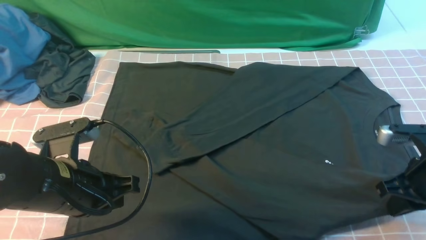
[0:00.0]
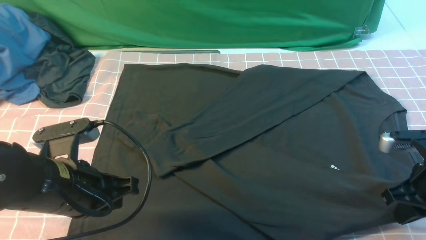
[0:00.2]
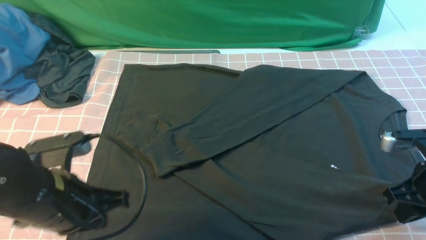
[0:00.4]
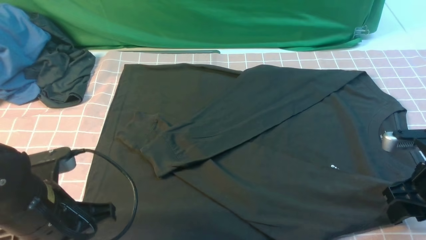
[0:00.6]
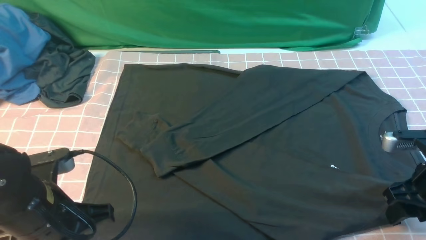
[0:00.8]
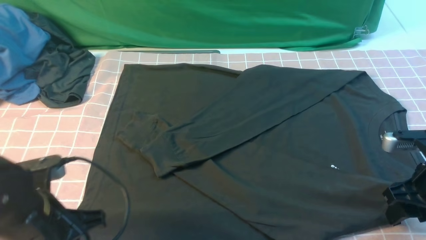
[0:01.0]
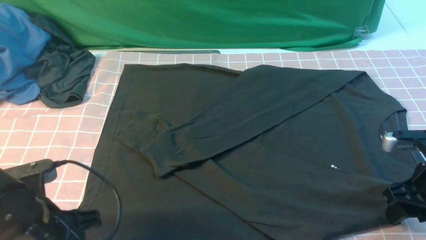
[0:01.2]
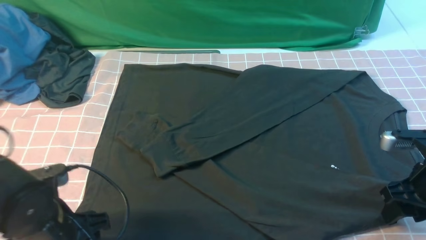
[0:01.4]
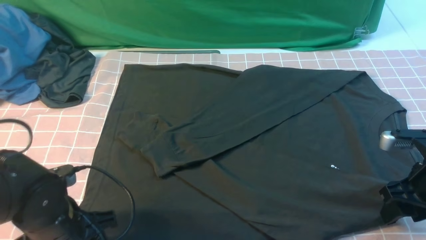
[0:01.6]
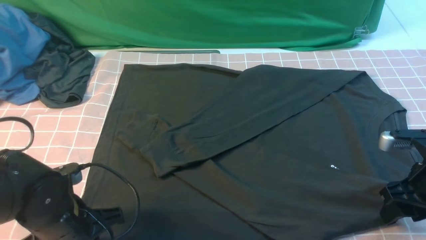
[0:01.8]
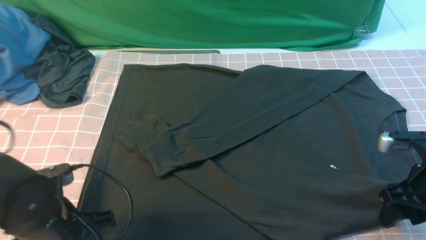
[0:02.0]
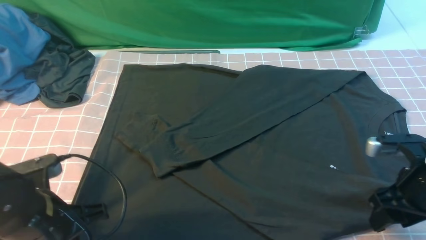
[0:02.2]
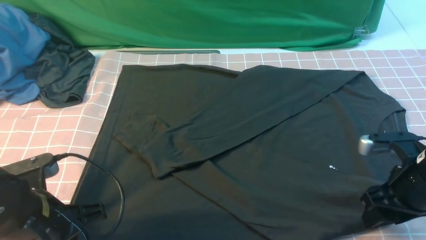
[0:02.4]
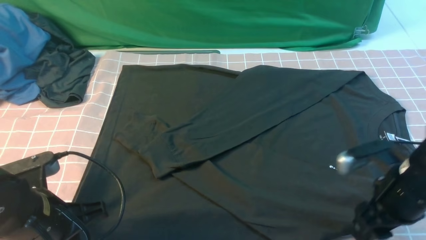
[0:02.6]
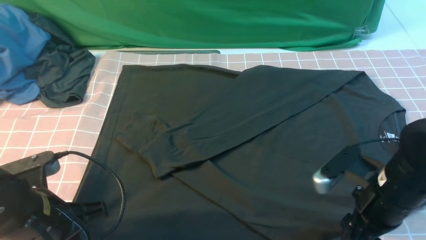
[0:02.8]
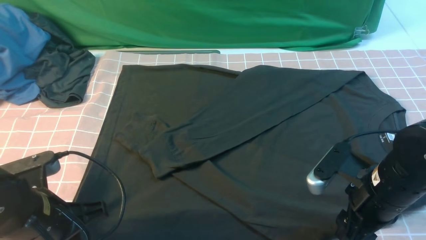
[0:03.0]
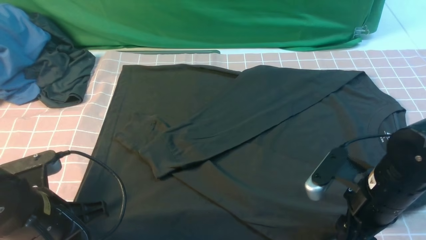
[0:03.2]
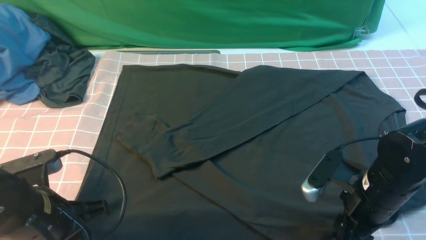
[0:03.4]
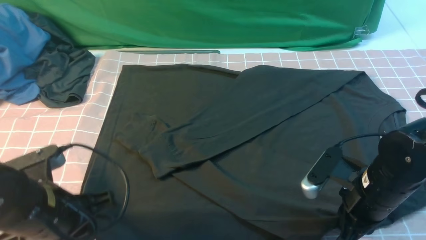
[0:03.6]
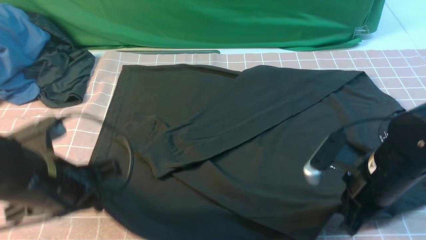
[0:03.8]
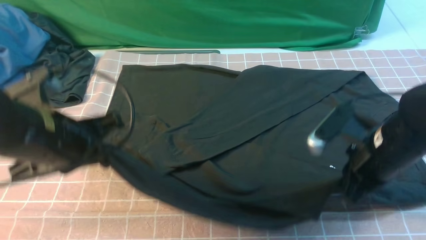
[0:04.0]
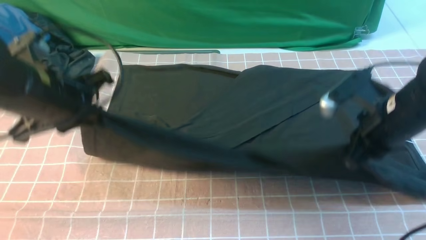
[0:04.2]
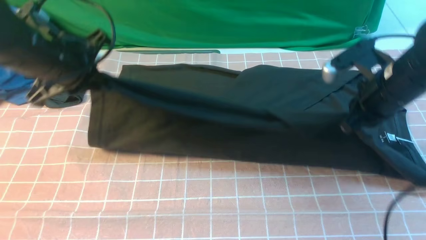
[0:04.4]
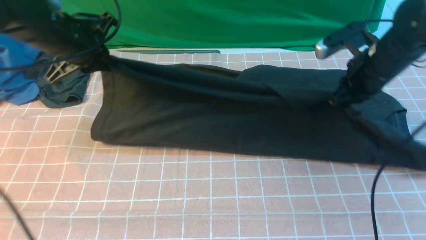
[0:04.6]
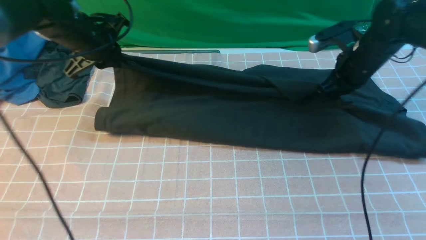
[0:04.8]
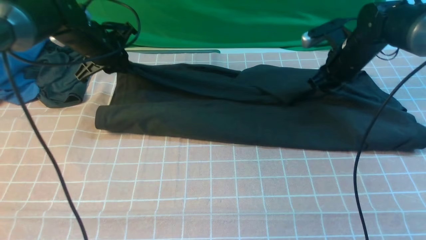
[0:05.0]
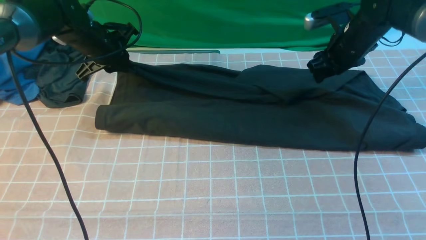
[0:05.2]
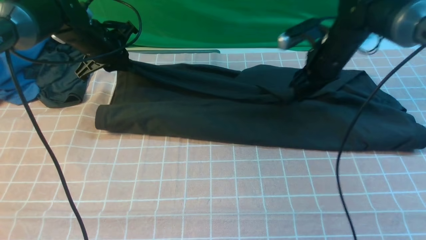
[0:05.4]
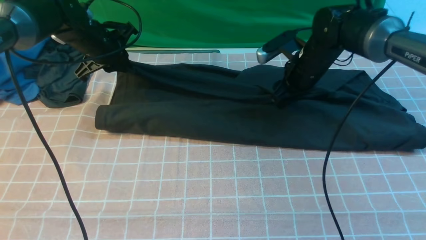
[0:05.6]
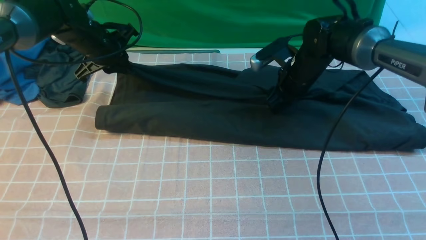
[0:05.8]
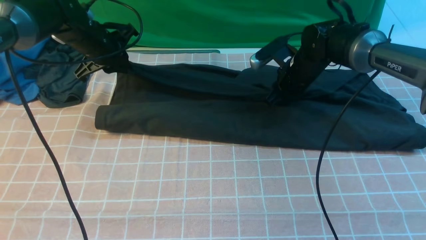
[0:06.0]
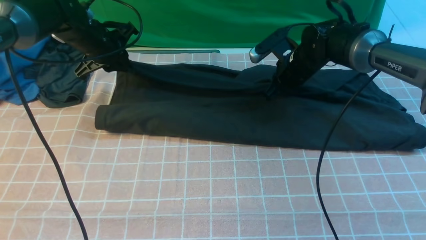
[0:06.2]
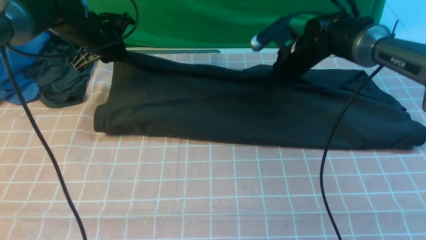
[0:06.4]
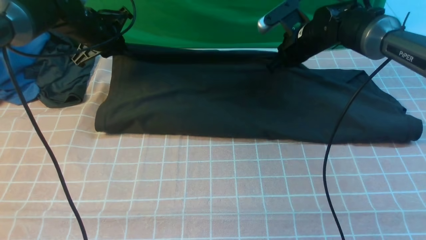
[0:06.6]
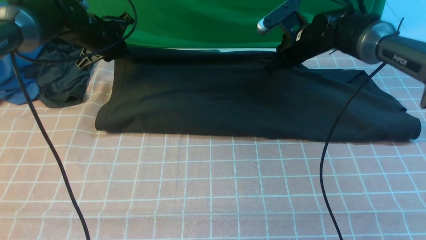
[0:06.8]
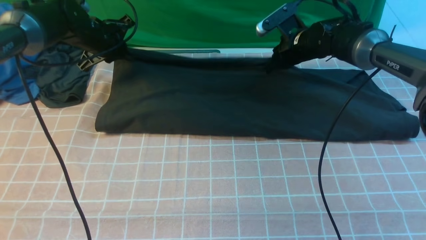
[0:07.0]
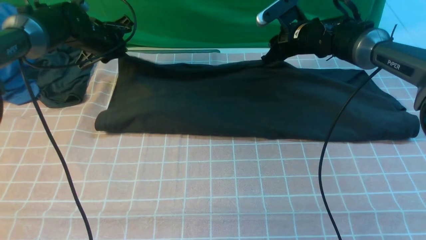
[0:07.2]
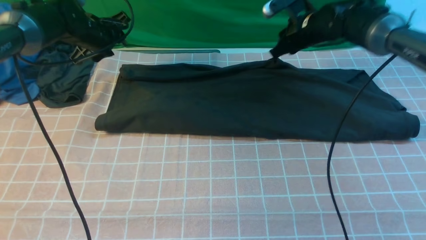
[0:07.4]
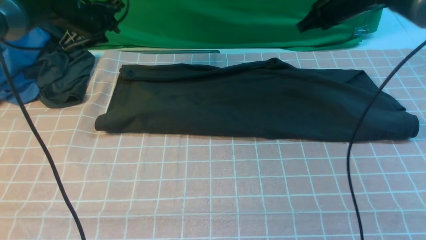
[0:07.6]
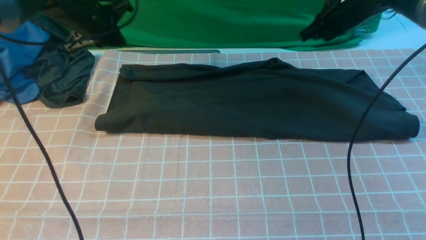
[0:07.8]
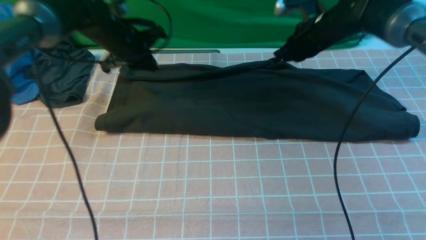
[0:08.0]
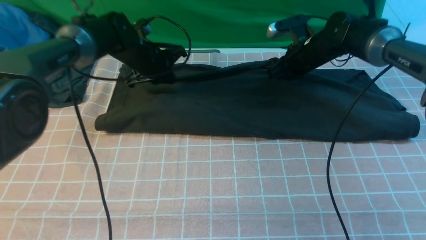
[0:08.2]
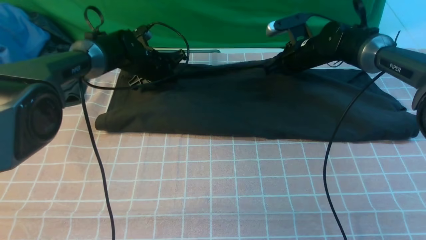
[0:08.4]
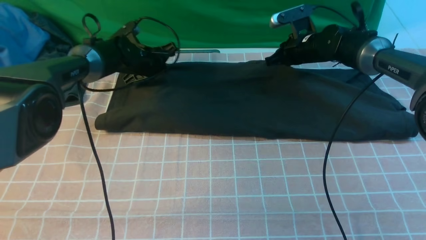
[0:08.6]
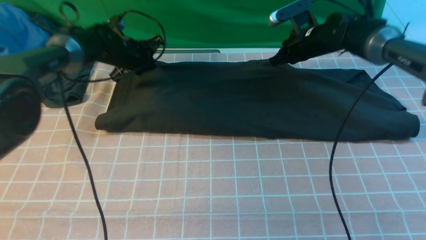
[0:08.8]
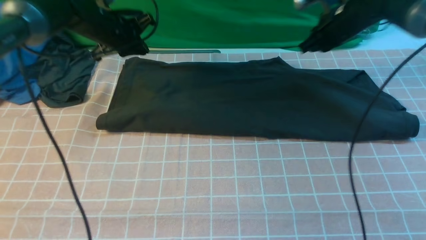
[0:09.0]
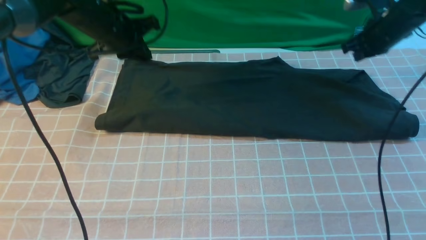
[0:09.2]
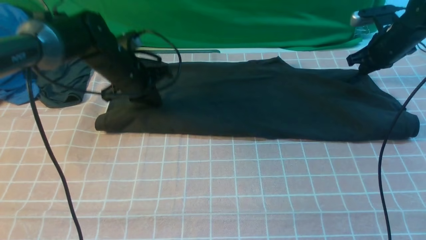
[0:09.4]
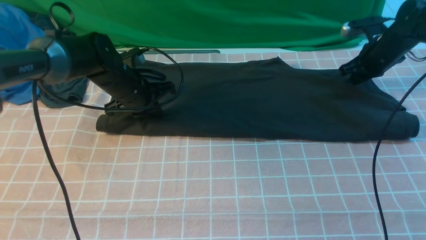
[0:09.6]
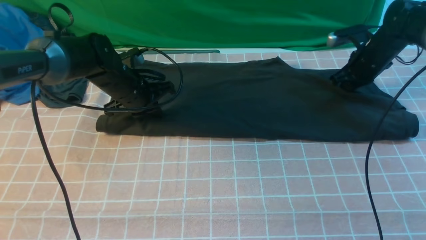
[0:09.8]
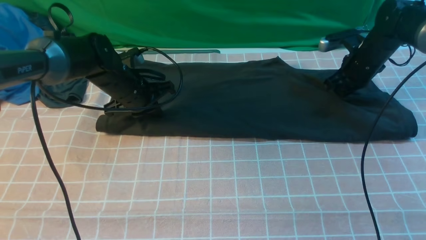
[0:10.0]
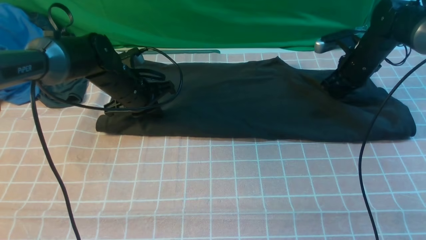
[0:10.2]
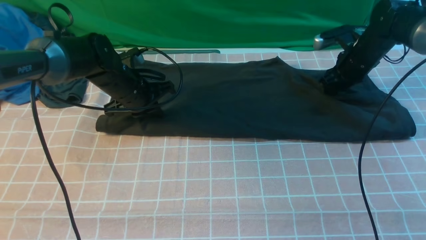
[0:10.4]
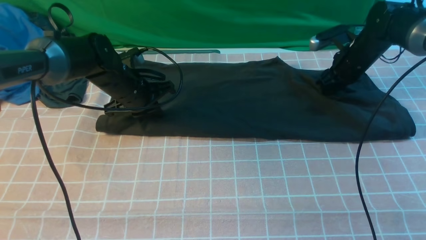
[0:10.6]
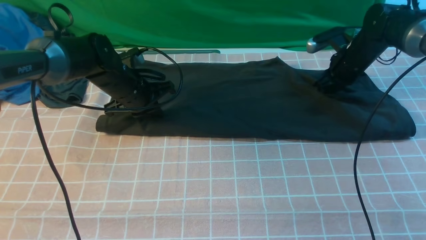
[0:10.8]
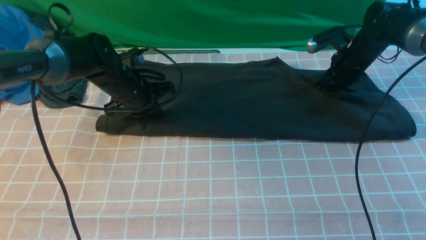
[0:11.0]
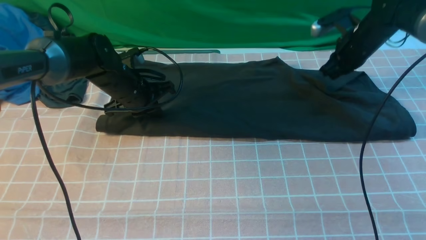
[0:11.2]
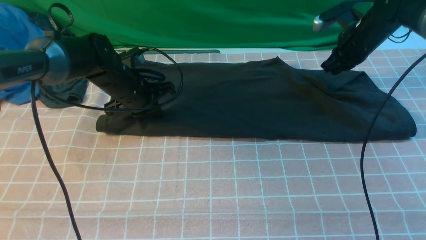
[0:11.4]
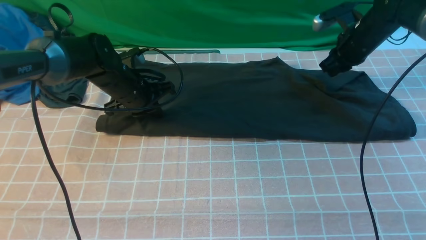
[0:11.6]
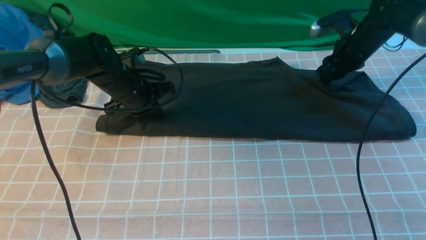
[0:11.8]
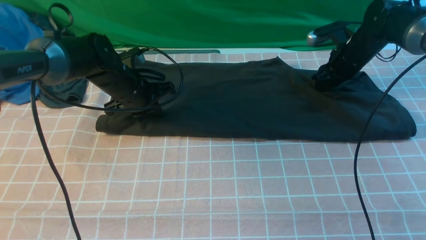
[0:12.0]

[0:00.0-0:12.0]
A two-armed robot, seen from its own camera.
Step, 0:00.0 to 0:03.4: use both arms simultaneously to clamp the lower edge of the clothing fabric.
Step, 0:03.8 to 0:07.2: use both arms to drag the lower edge of the fabric forward and fold it over the upper edge.
0:00.0 to 0:01.6: The right gripper opens its fingers. Meanwhile the left gripper goes about 5 cm downward, and opens its fingers.
0:01.6 to 0:03.0: The right gripper moves to the left, roughly 10 cm; the left gripper closes.
0:03.0 to 0:04.4: The two grippers go approximately 15 cm forward and upward. The right gripper closes.
0:04.4 to 0:06.0: The right gripper is displaced forward, to the left and downward by some 15 cm, and opens, then closes once more. Meanwhile the left gripper shifts roughly 15 cm forward and downward.
0:06.0 to 0:07.6: The right gripper travels upward and to the right by about 10 cm.
0:07.6 to 0:09.0: The left gripper goes downward and returns, approximately 10 cm each way, and closes up.
0:09.0 to 0:10.4: The right gripper is displaced downward by roughly 5 cm, and opens its fingers; the left gripper travels backward and downward by roughly 10 cm.
0:10.4 to 0:12.0: The right gripper closes, then opens again.

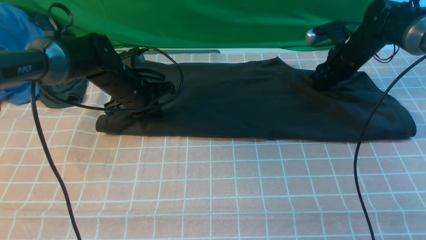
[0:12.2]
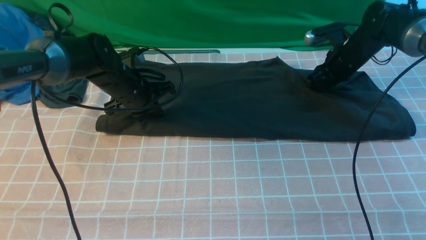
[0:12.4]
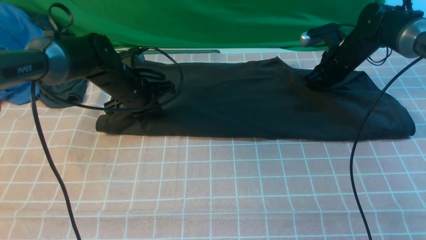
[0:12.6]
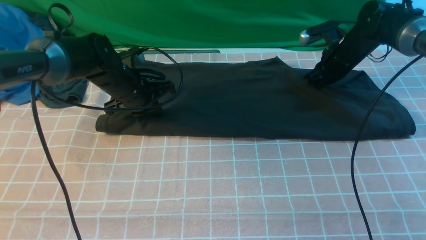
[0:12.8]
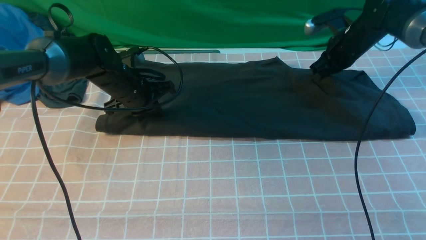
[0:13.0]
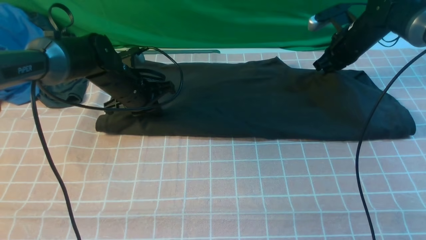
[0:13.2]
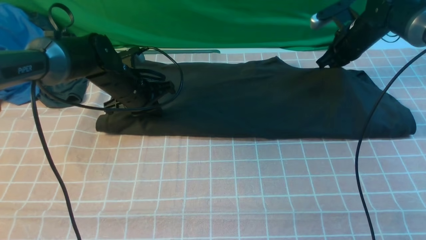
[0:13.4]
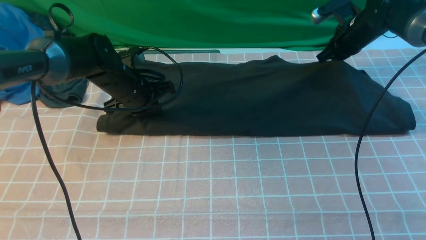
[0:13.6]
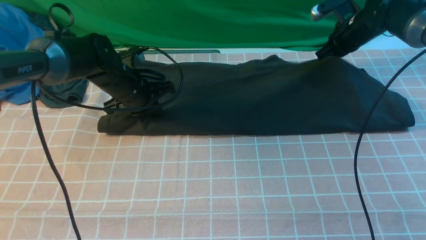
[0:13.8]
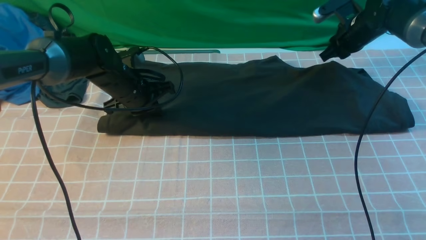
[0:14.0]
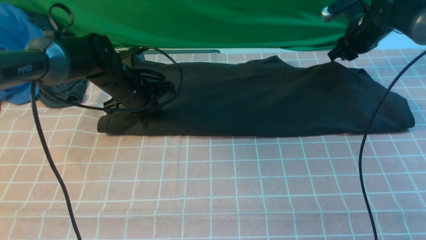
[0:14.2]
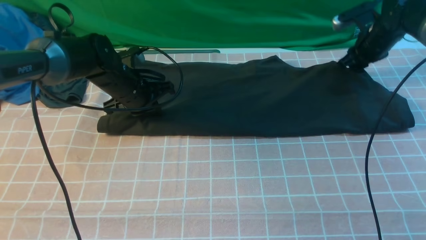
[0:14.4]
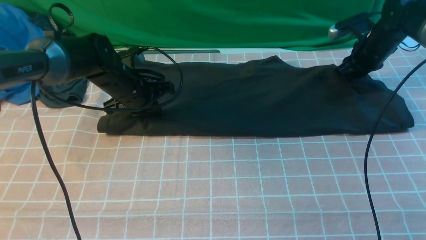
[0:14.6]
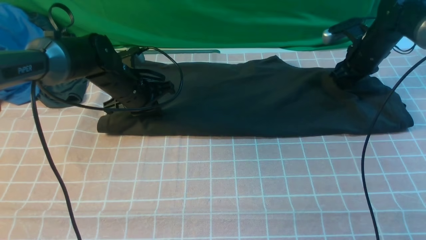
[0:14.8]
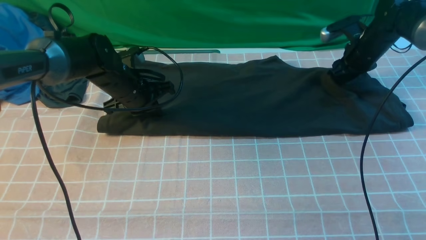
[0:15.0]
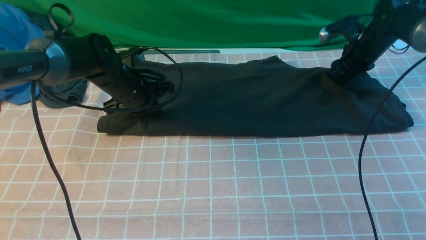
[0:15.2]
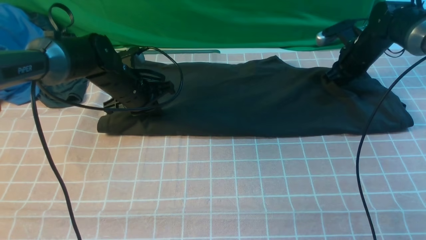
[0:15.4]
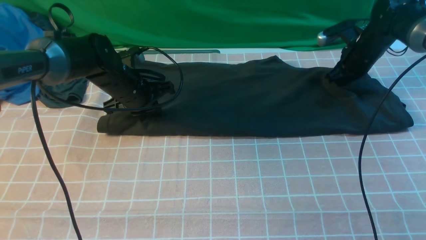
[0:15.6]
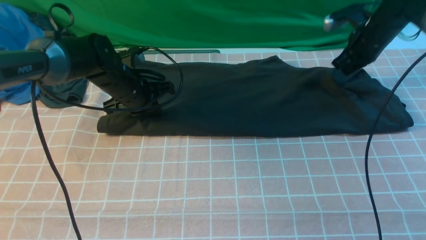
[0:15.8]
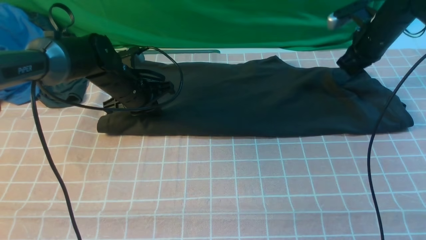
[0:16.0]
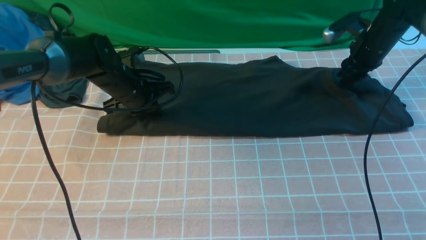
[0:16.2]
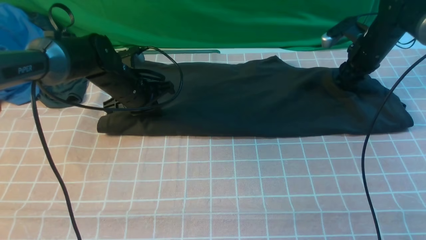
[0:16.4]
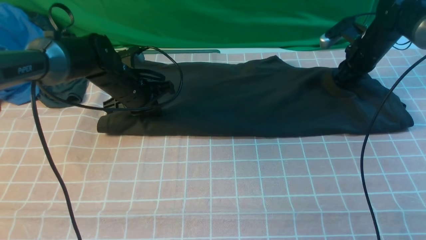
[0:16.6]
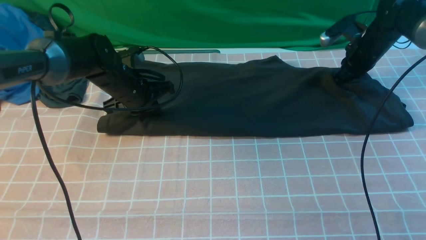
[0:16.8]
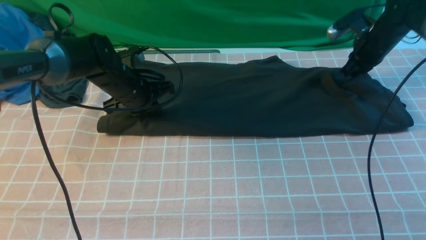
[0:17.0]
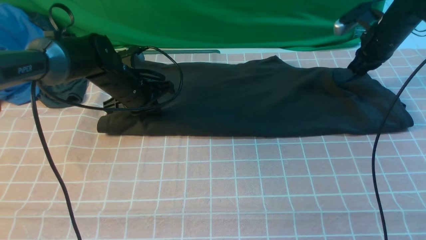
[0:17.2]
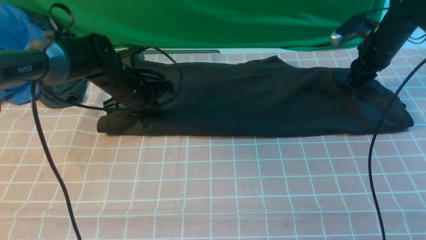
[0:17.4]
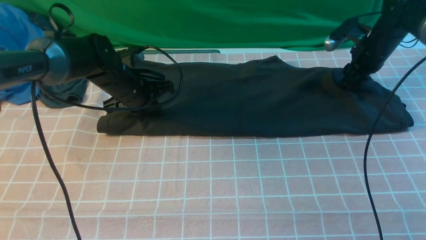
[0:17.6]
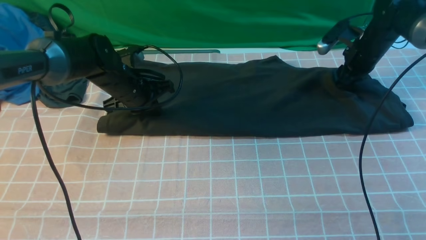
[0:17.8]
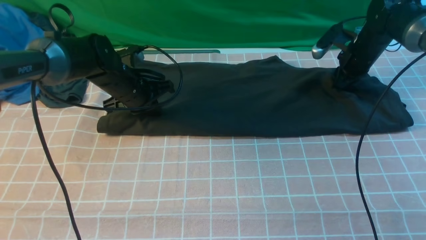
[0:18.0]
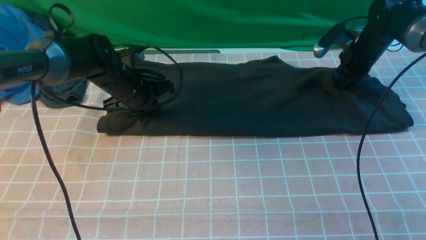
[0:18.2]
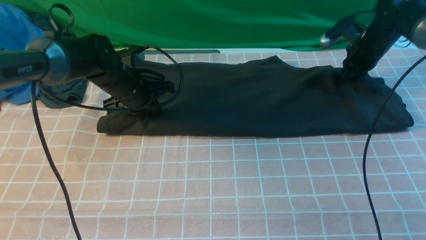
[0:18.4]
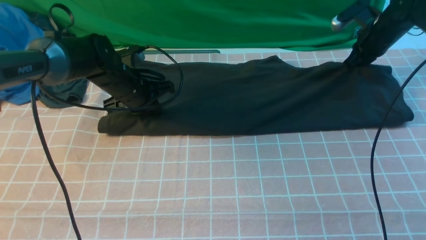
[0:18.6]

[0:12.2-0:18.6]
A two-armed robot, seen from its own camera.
0:12.2 to 0:13.8: The right gripper closes up.
0:13.8 to 0:15.4: The right gripper opens and closes again.
0:15.4 to 0:17.0: There are only small adjustments of the grippers.
0:17.0 to 0:18.6: The right gripper opens, then closes again.
